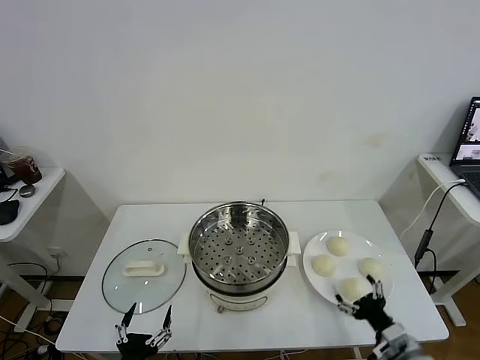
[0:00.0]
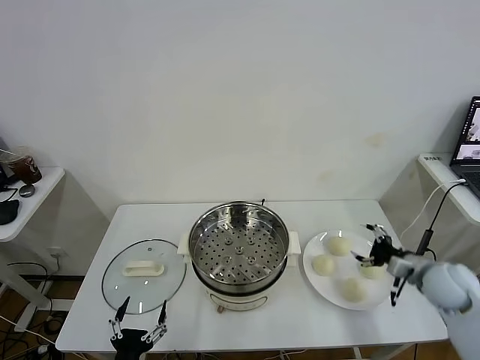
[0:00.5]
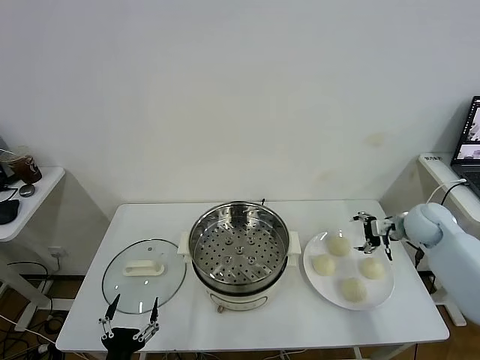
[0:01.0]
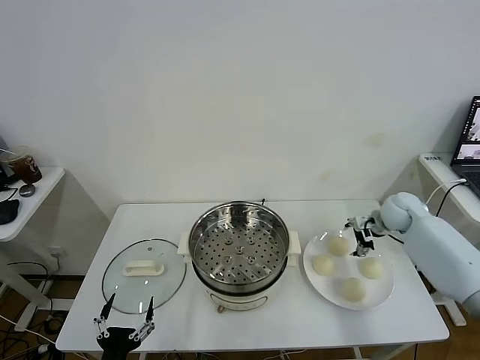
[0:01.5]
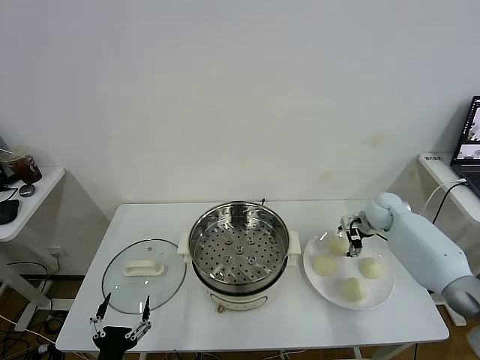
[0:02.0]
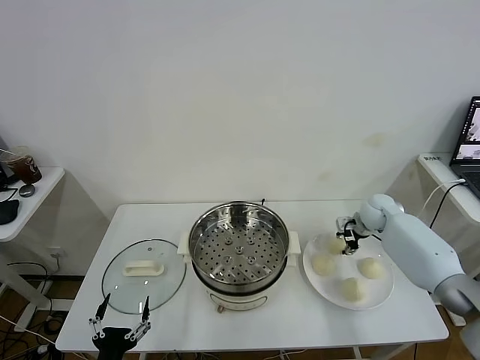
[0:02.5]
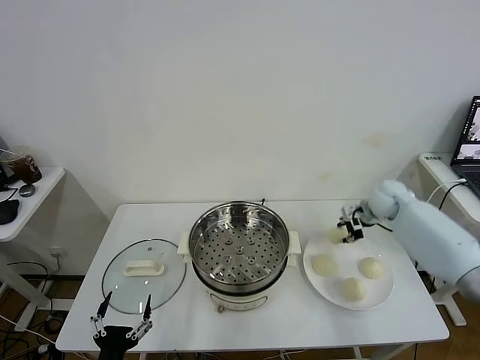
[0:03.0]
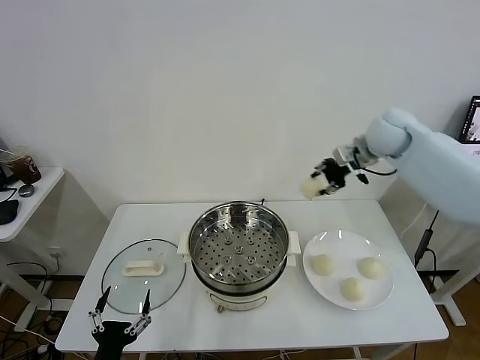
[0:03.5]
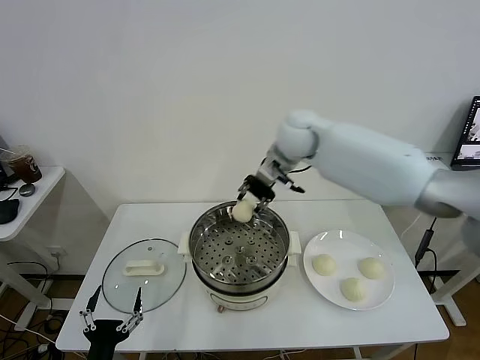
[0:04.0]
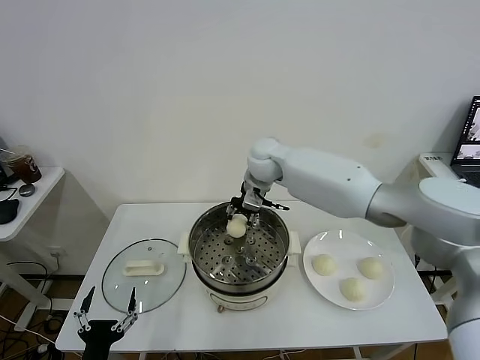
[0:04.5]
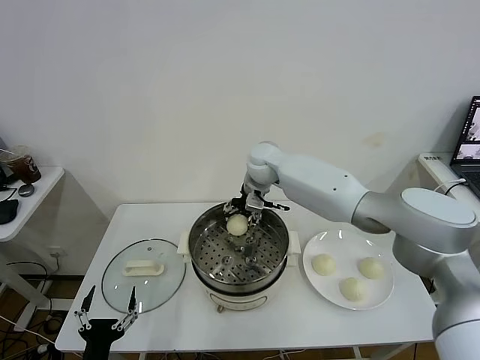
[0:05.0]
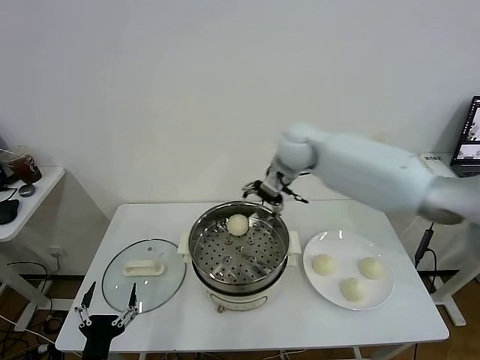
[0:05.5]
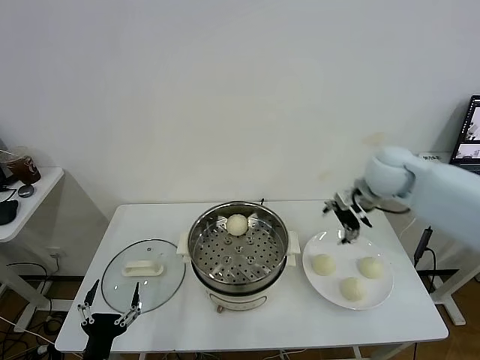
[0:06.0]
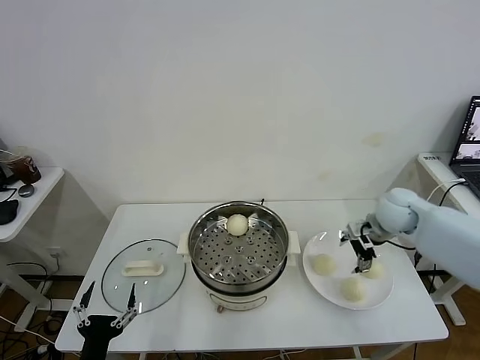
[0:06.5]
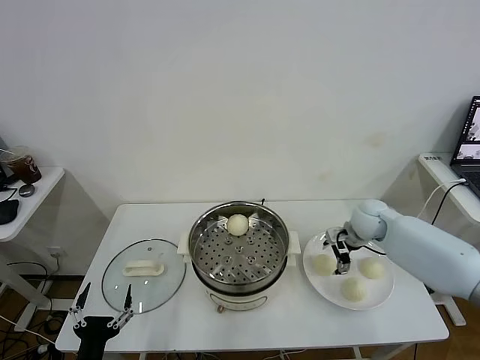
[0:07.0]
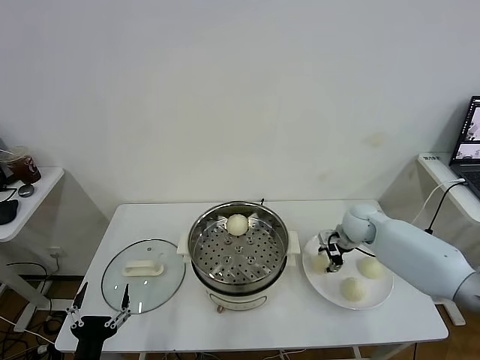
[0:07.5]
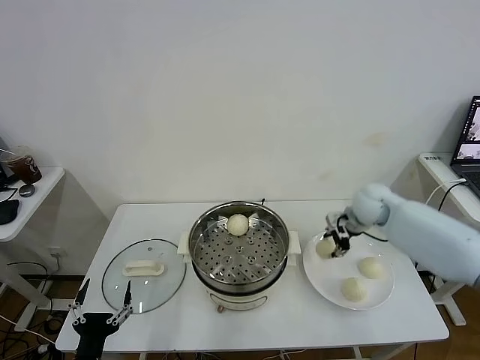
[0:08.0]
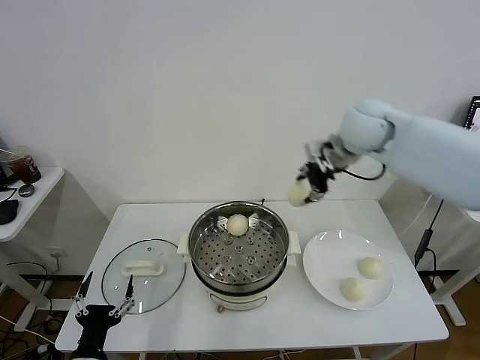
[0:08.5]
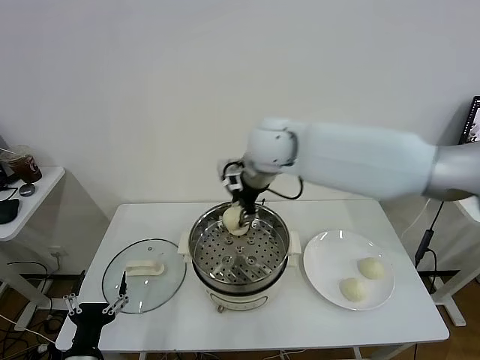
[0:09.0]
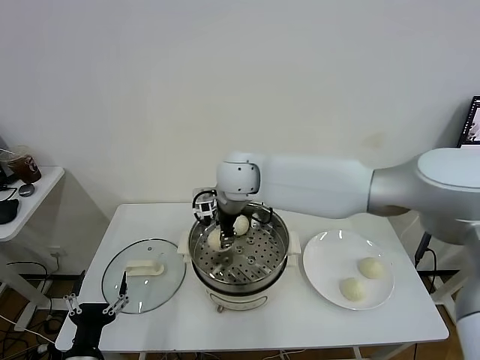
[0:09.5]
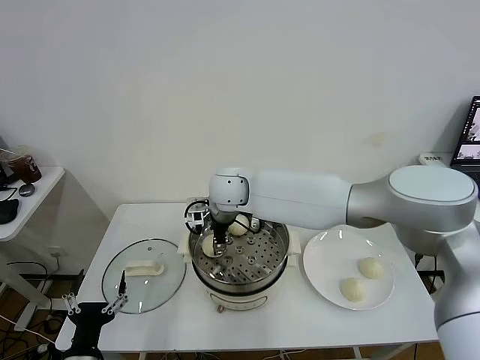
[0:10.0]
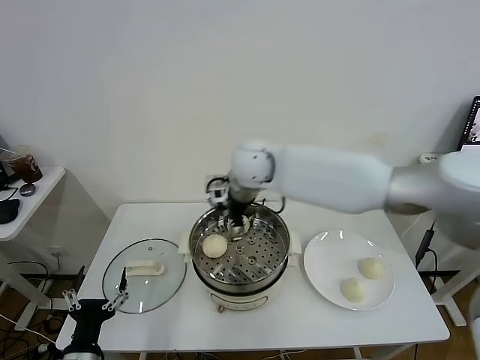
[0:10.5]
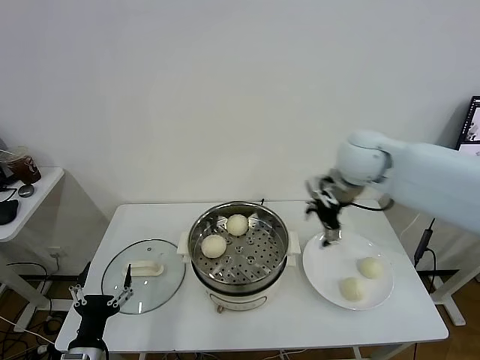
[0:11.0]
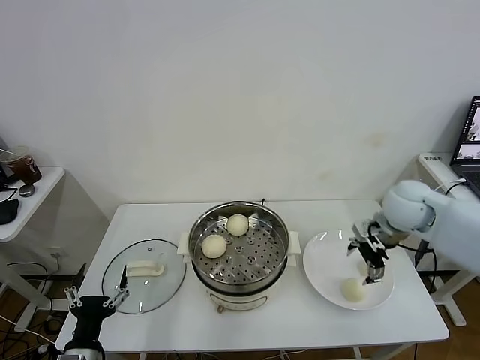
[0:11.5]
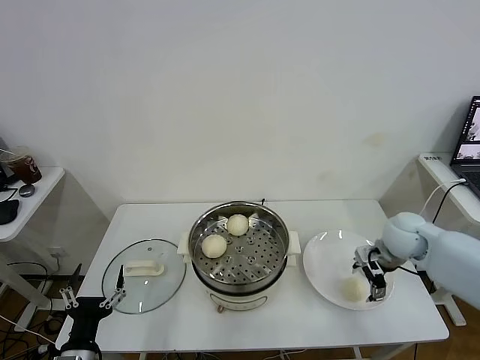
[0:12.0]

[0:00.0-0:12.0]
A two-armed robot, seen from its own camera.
Task of the whole recording: take steamed baozi put them in steamer.
Step, 0:00.0 to 0:02.5: Grasp the baozi in the plate with right gripper.
Step, 0:03.0 to 0:05.0: Place the baozi on the steamer with right gripper.
Step, 0:05.5 to 0:07.5: Grasp the baozi in the plate with right gripper.
Step, 0:08.0 to 0:10.0: Place the baozi on the steamer with right gripper.
0:02.0 to 0:04.0: The right gripper is displaced to the left and upward by approximately 35 cm, and closes up.
0:04.0 to 0:06.0: The right gripper is displaced to the right by about 25 cm, and opens up.
0:06.0 to 0:08.0: The right gripper moves about 15 cm downward and comes back, and closes its fingers.
0:08.0 to 0:10.0: The right gripper travels to the left by roughly 35 cm, and opens.
0:10.0 to 0:12.0: The right gripper is displaced to the right by about 40 cm.

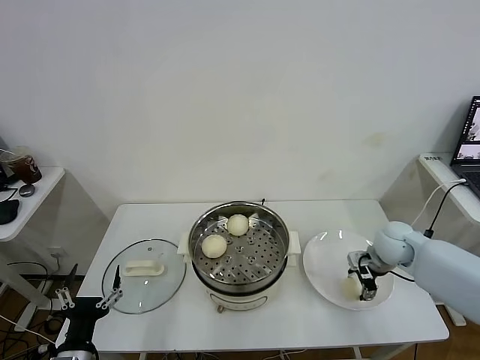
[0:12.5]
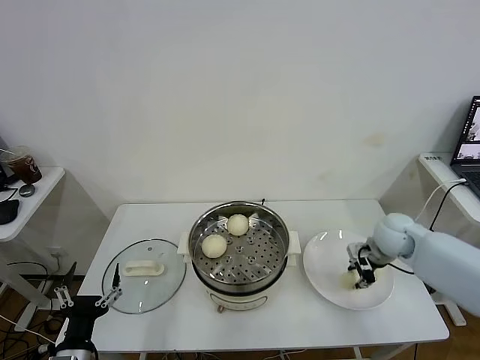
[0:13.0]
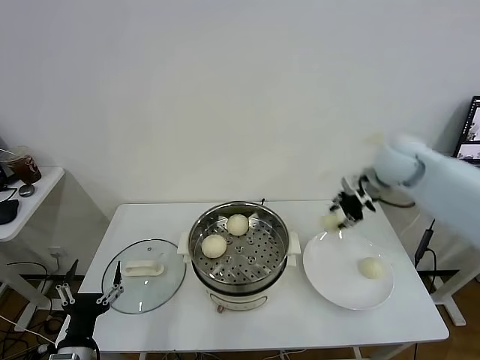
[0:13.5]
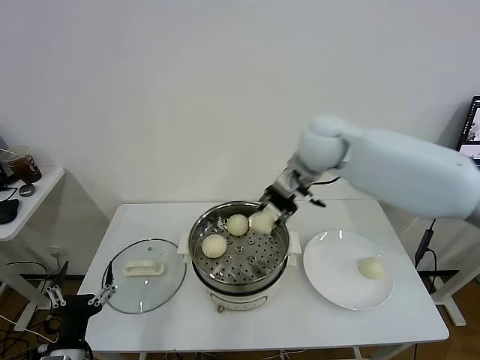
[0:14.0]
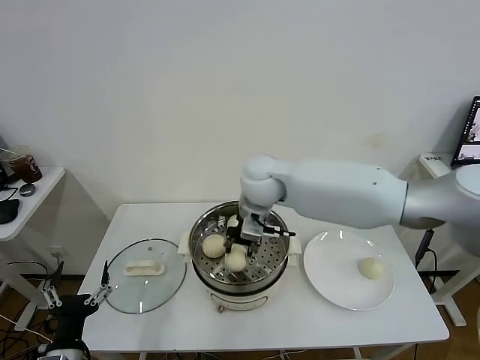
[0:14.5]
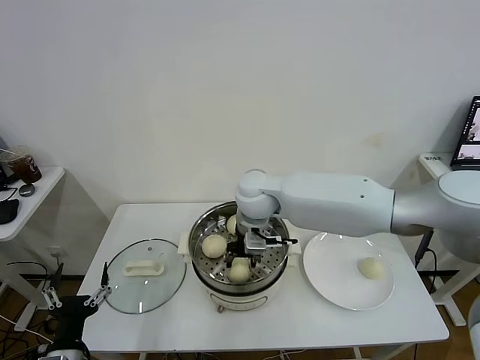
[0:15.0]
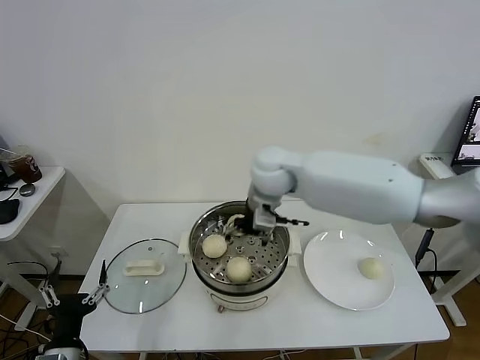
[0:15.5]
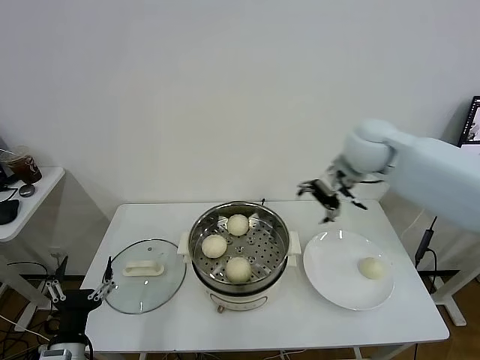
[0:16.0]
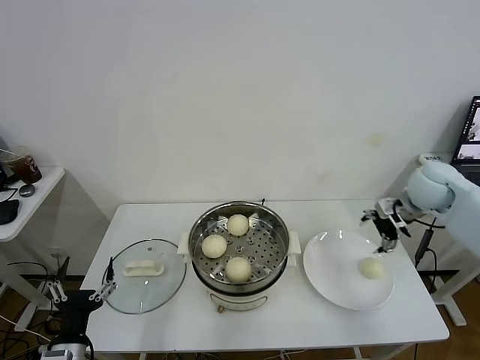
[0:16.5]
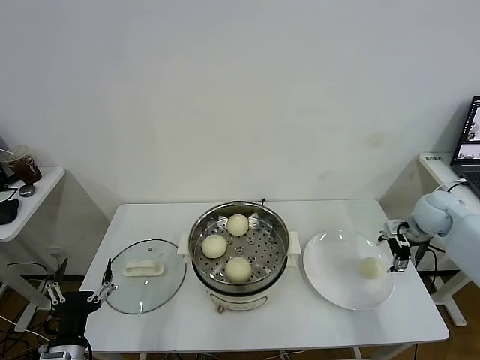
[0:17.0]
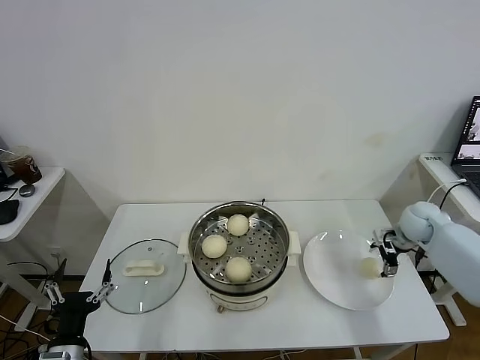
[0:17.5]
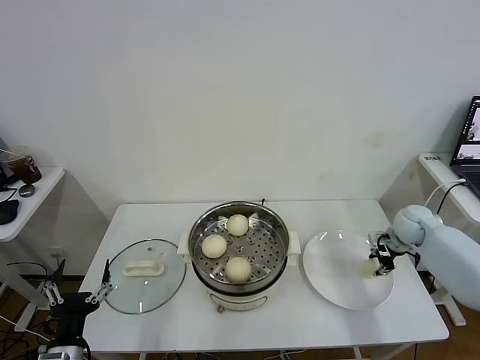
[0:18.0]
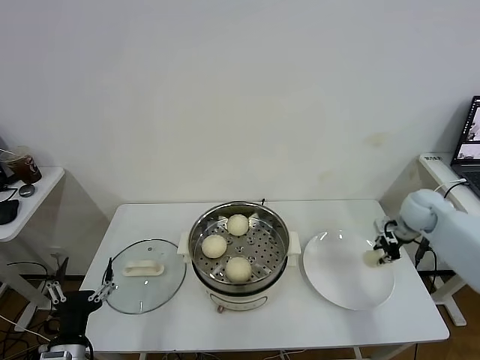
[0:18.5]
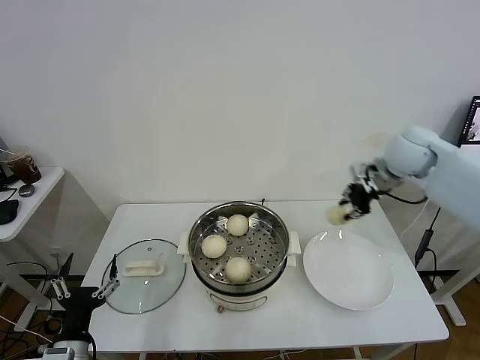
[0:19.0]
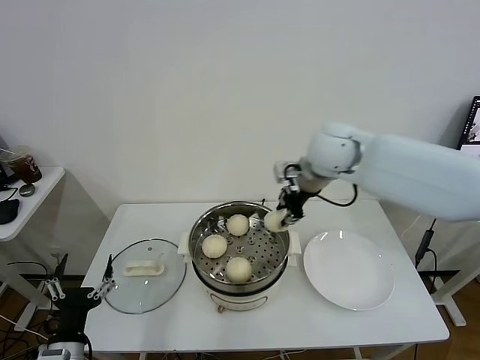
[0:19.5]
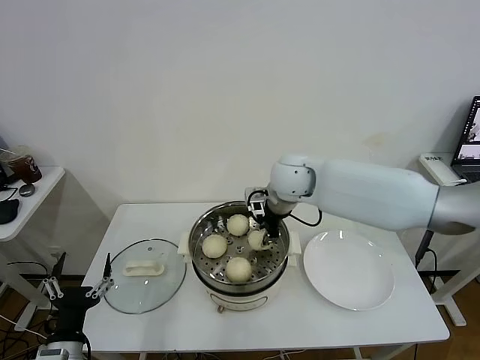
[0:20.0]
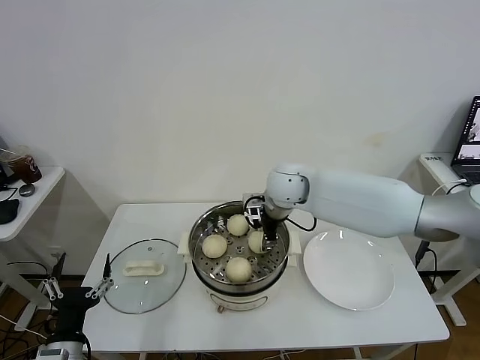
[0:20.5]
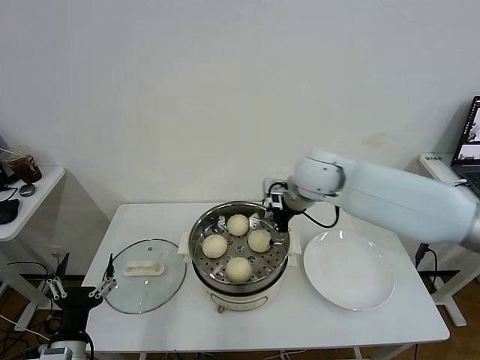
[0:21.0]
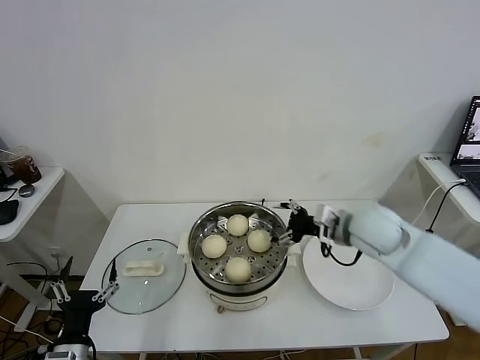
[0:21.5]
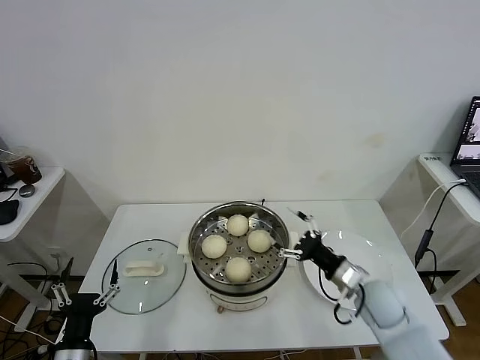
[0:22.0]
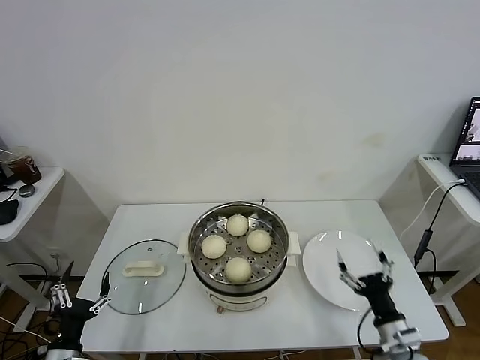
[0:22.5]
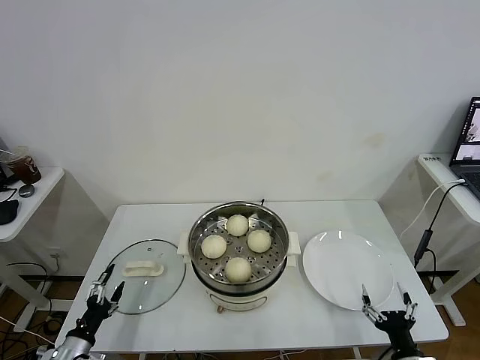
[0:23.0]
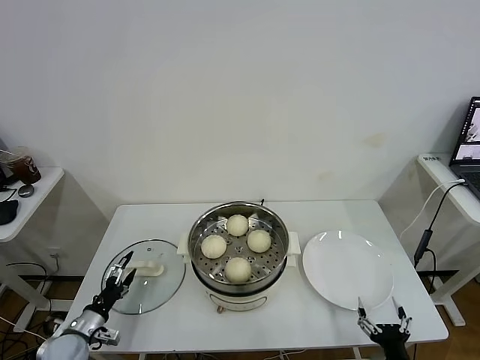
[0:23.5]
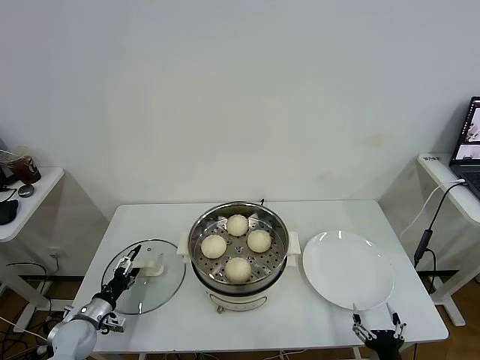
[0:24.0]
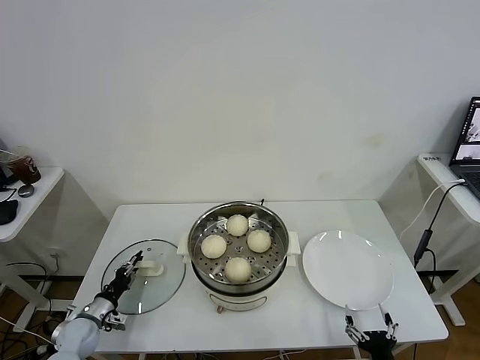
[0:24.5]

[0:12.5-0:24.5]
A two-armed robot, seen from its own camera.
Task of the whole recording: take steamed baozi put them in steamer.
Step, 0:13.0 to 0:15.0: Place the baozi on the steamer with right gripper.
Step, 0:15.5 to 0:18.0: Grasp the baozi in the plate with right gripper.
Step, 0:18.5 to 0:21.0: Place the baozi on the steamer with right gripper.
0:12.5 to 0:14.5: The right gripper shifts approximately 35 cm to the left and upward, and closes its fingers.
0:14.5 to 0:16.5: The right gripper moves to the right, about 40 cm, and opens up.
0:16.5 to 0:18.5: The right gripper heads downward, covering roughly 5 cm, and closes.
0:18.5 to 0:20.5: The right gripper shifts roughly 35 cm to the left, and opens up.
0:20.5 to 0:22.5: The right gripper shifts about 50 cm backward, to the right and downward, and opens; the left gripper is displaced downward by approximately 5 cm.
0:22.5 to 0:24.5: The right gripper travels backward and downward by roughly 10 cm; the left gripper shifts roughly 20 cm forward and downward, and closes up.

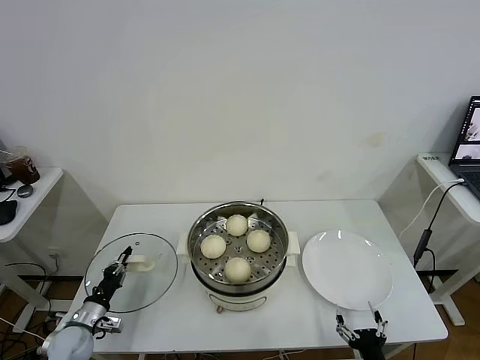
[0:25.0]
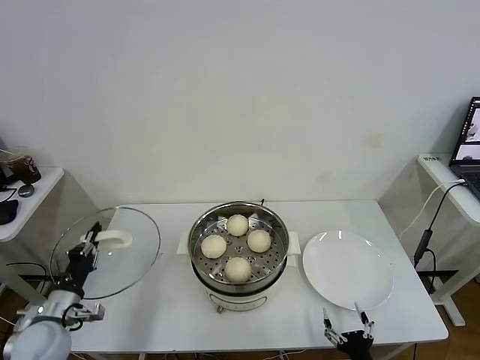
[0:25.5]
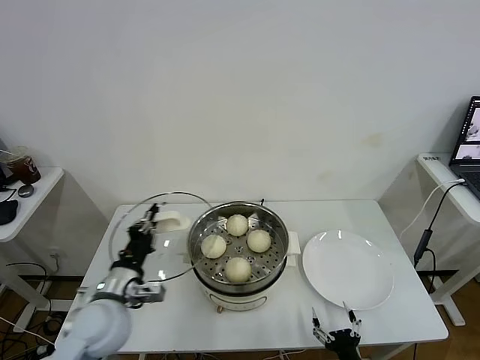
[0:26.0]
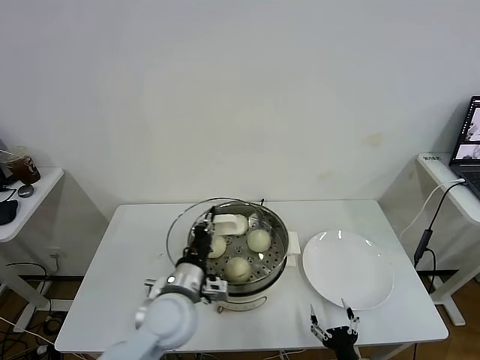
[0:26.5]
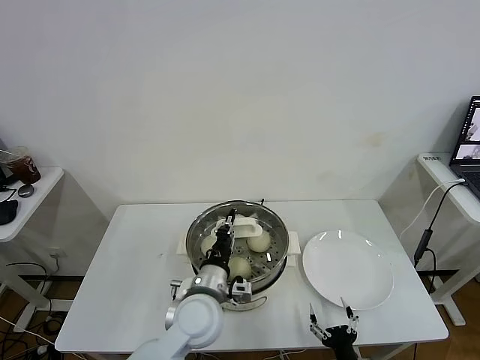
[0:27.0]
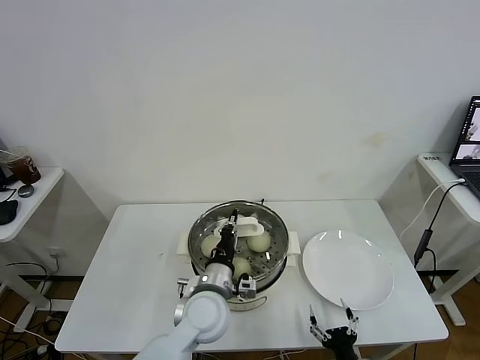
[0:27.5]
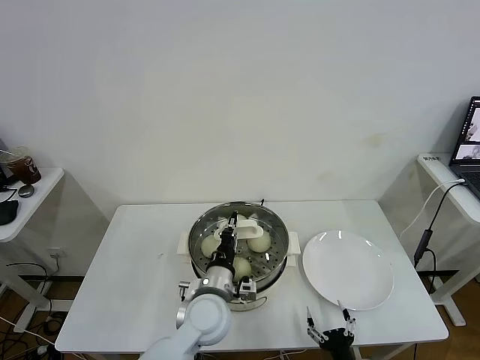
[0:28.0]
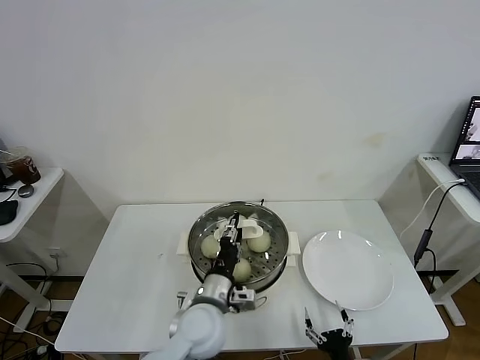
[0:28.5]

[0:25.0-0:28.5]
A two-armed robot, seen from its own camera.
Task of the whole recording: take steamed baozi put them in steamer.
0:25.0 to 0:27.0: The left gripper travels to the right and upward by approximately 35 cm, while the right gripper shifts by approximately 5 cm.
0:27.0 to 0:28.5: The left gripper opens.
